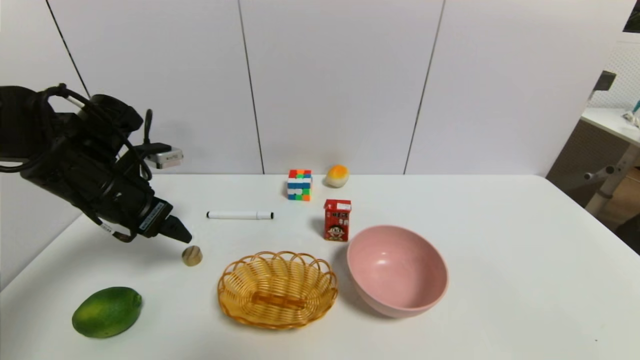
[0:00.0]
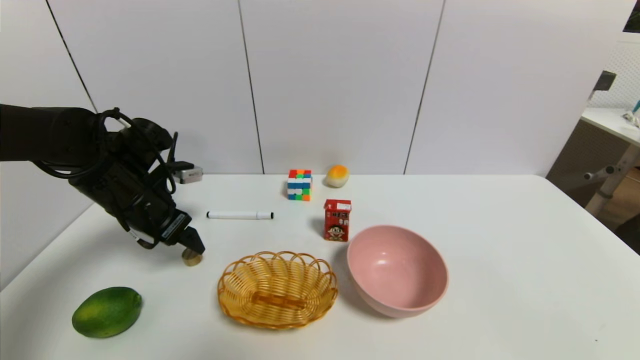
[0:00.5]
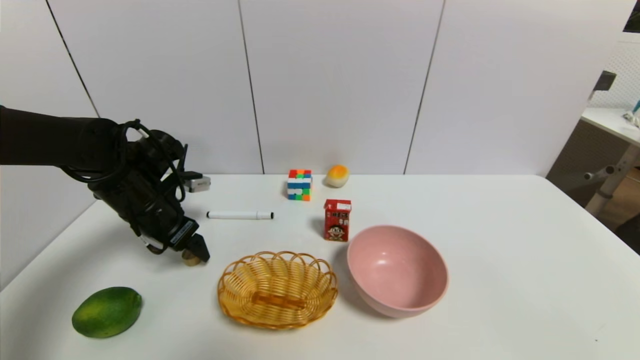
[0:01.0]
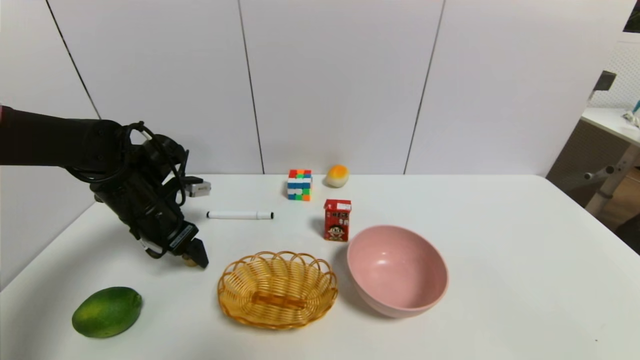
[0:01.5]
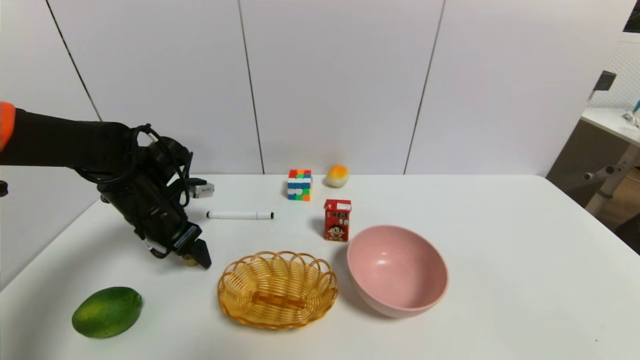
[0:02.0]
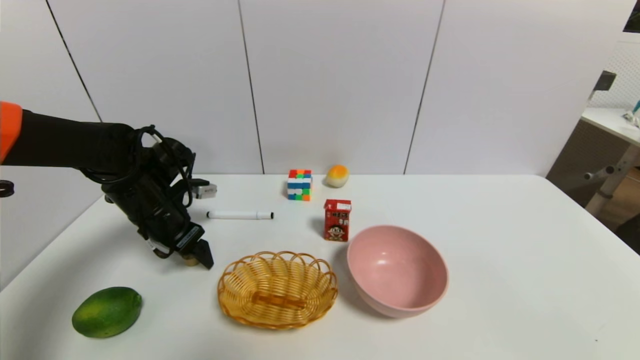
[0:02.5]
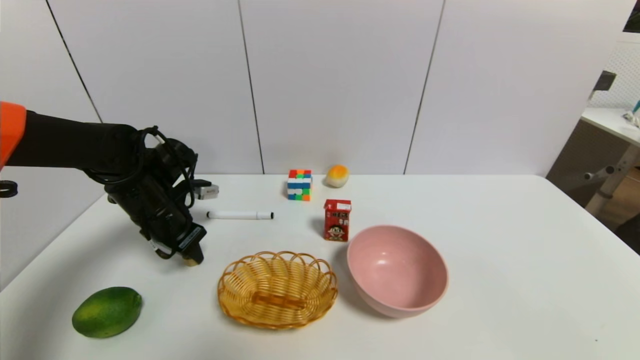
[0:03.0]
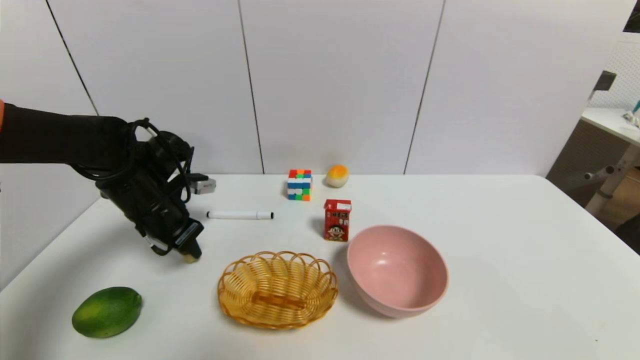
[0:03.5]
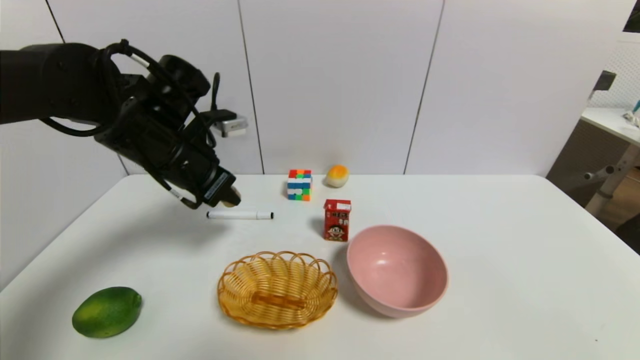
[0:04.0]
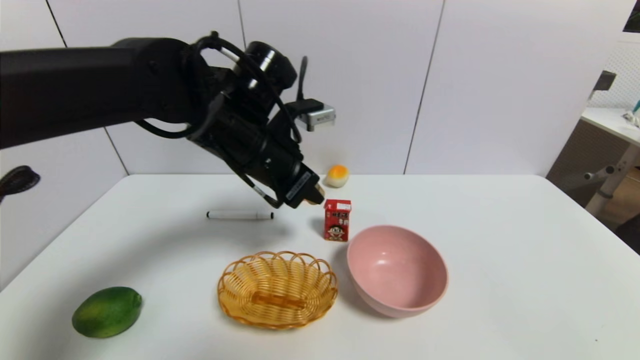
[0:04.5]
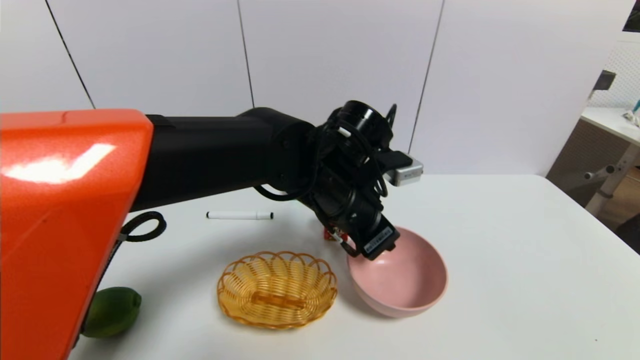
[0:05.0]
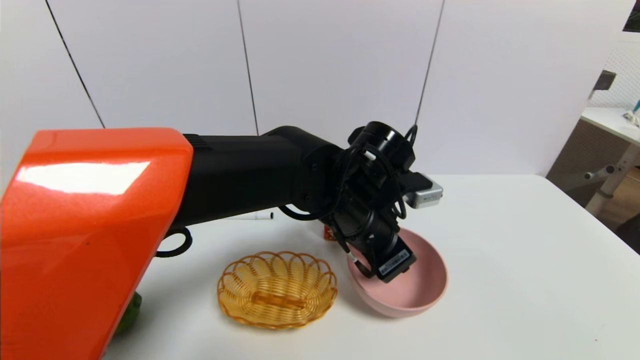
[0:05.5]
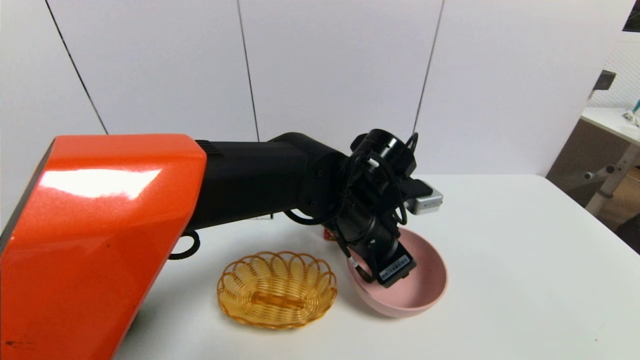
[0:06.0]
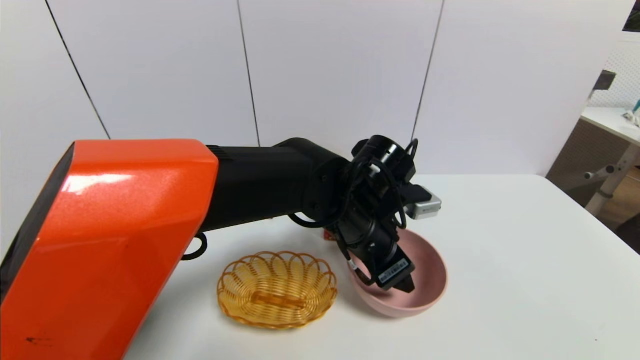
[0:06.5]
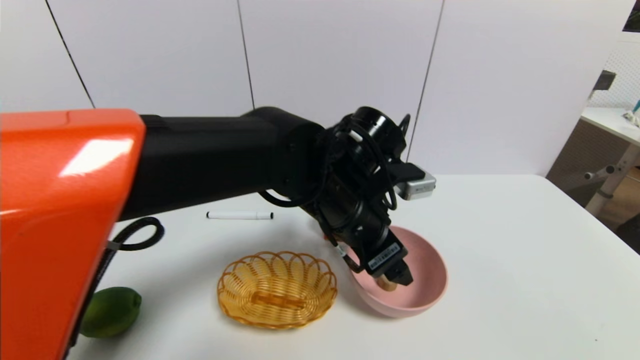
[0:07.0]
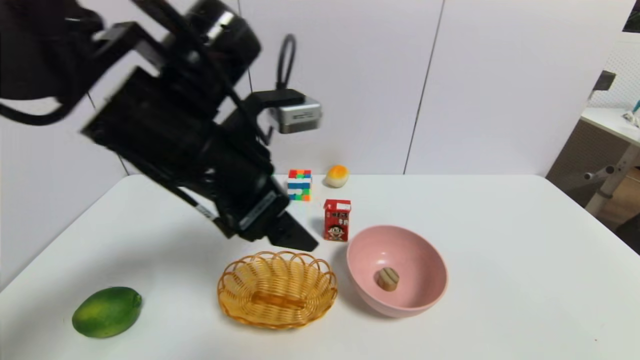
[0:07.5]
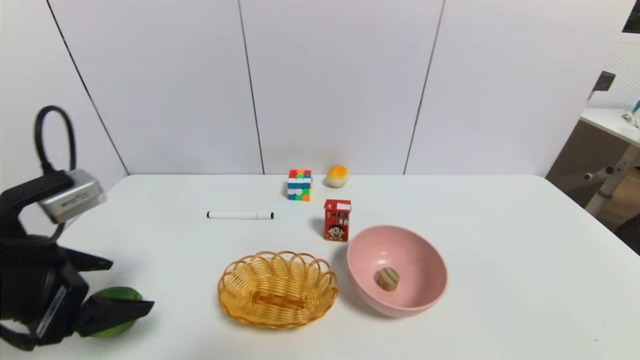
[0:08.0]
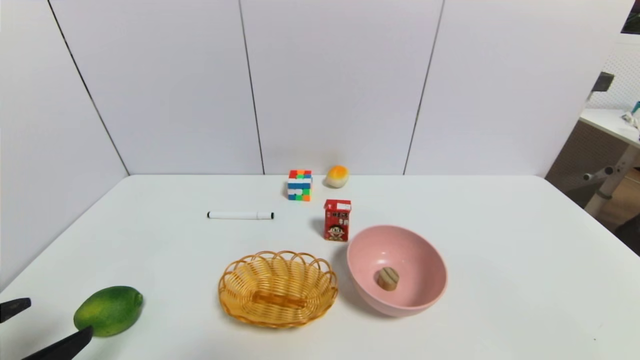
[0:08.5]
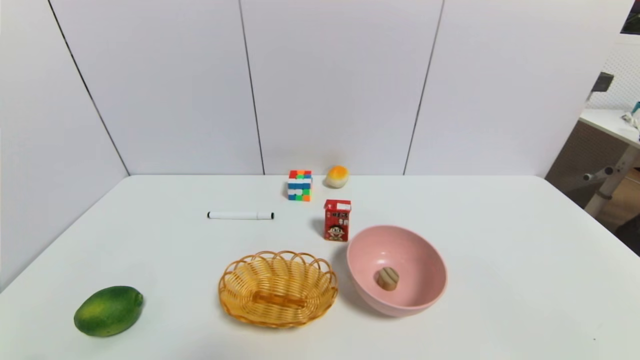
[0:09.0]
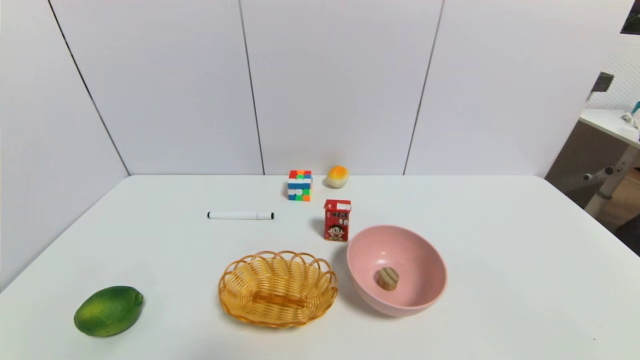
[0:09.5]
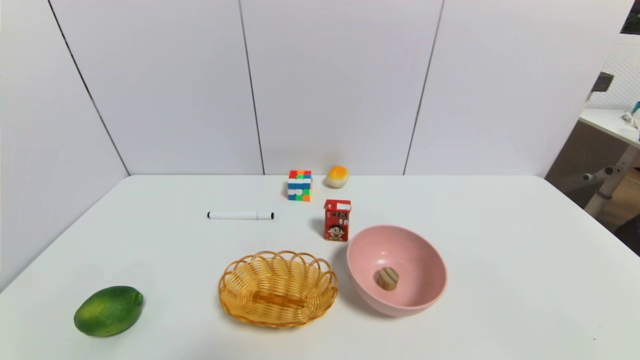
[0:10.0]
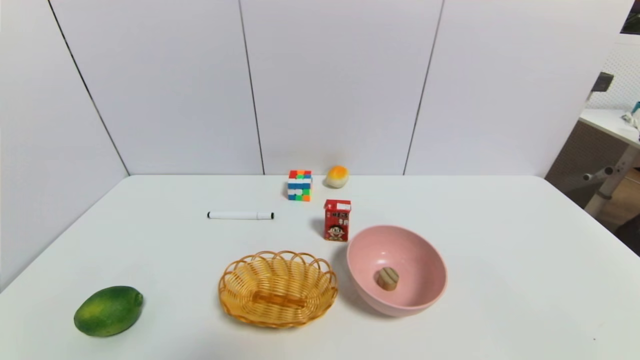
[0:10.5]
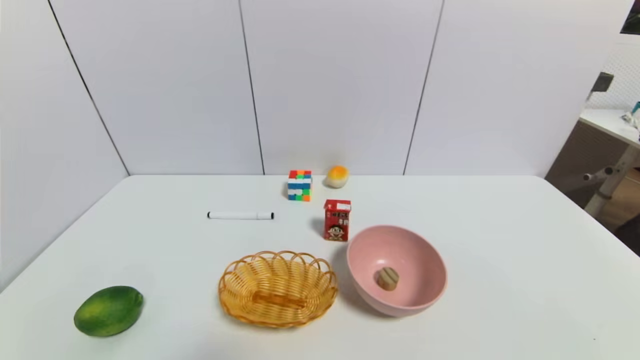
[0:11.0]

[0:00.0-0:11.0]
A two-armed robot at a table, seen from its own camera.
Task of the whole recording: use a gripper to pick the target object and place on the pink bowl.
Step, 0:00.0 to 0:03.0: Grasp the round wooden block with the left gripper.
Step, 0:03.5 to 0:06.5: Place the round wooden block on the pink bowl with the left gripper.
0:00.0 to 0:02.0: The left gripper is displaced downward by roughly 5 cm.
0:02.0 to 0:03.5: The left gripper closes its fingers.
0:03.5 to 0:05.5: The left gripper travels to the right by roughly 30 cm.
0:05.5 to 0:07.5: The left gripper heads to the left and upward, covering approximately 20 cm, and opens its fingers.
0:07.5 to 0:09.0: The left gripper moves backward, downward and to the left, approximately 35 cm.
